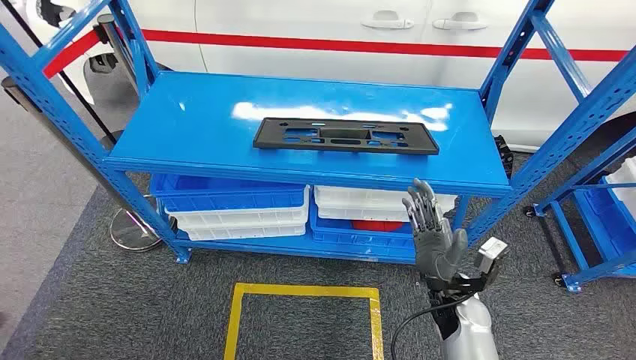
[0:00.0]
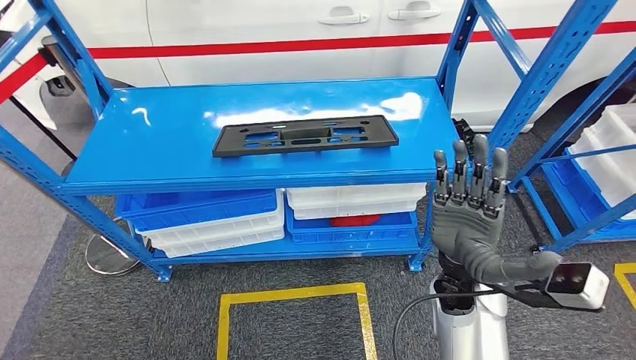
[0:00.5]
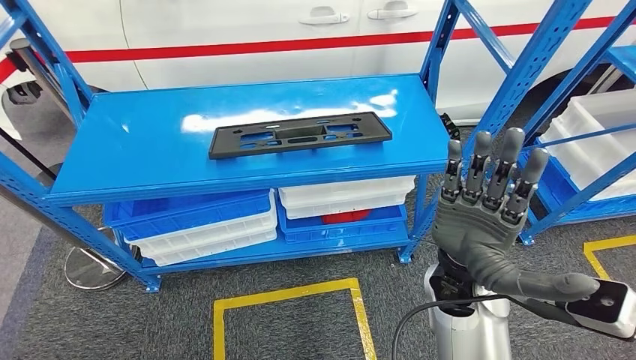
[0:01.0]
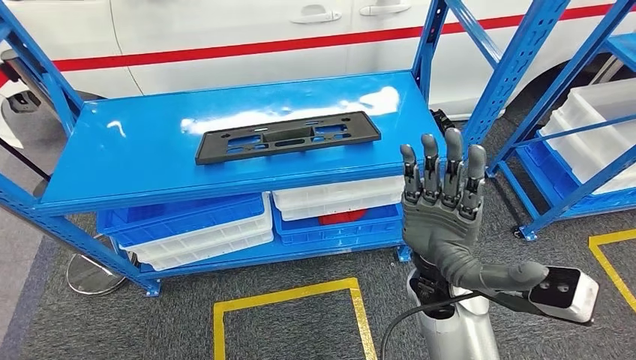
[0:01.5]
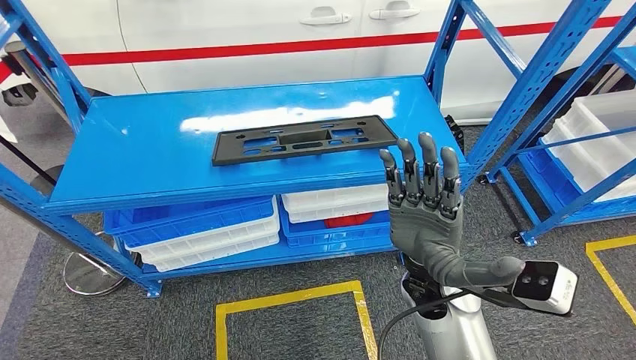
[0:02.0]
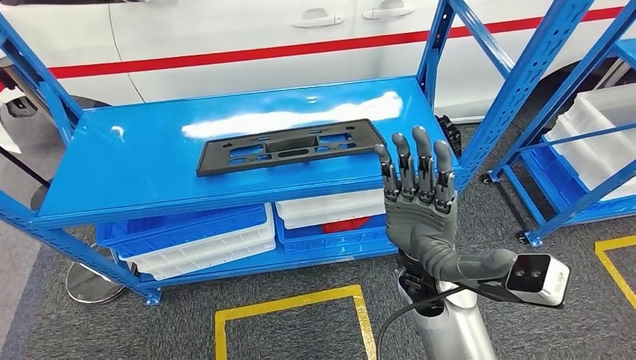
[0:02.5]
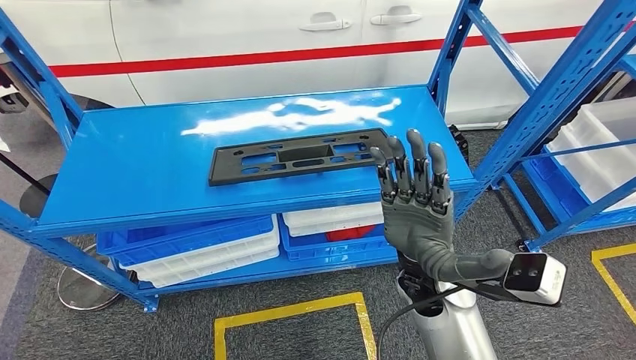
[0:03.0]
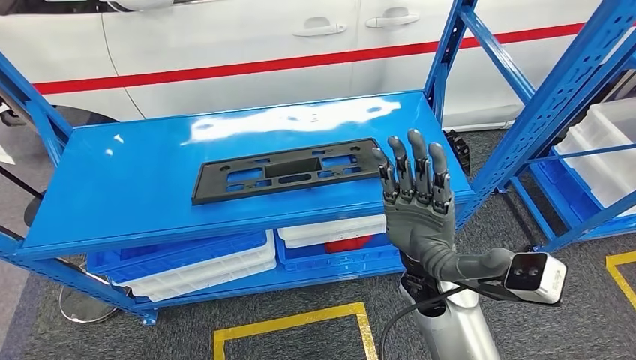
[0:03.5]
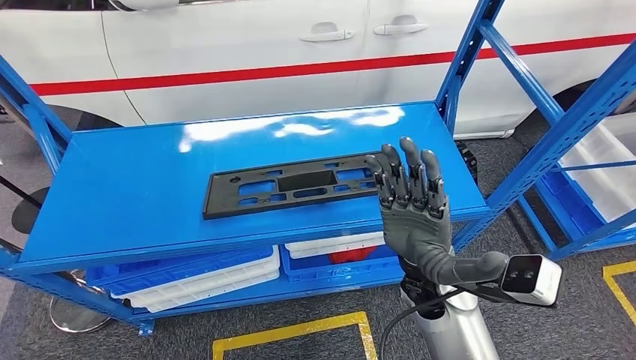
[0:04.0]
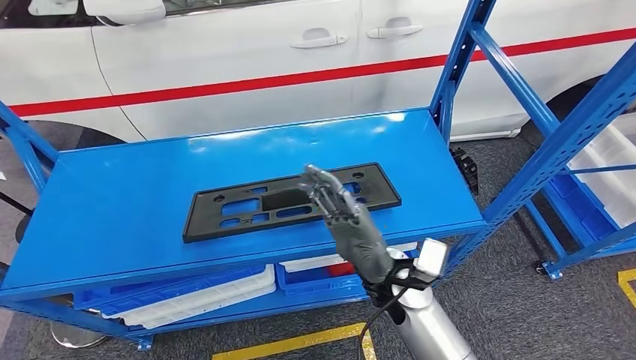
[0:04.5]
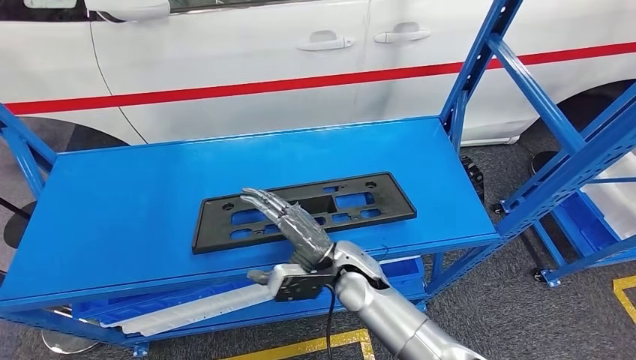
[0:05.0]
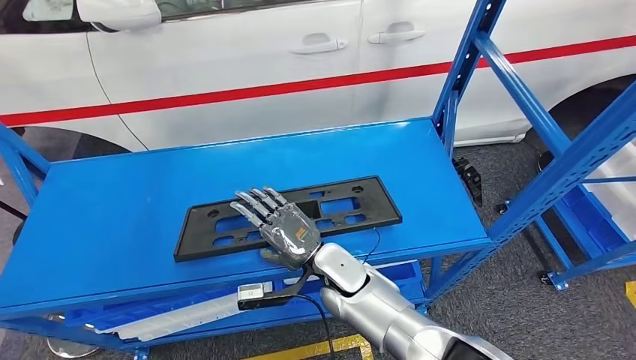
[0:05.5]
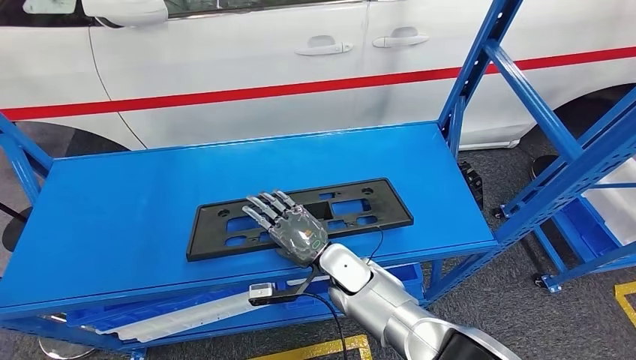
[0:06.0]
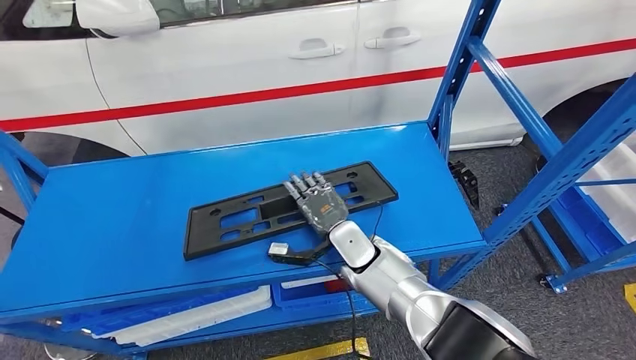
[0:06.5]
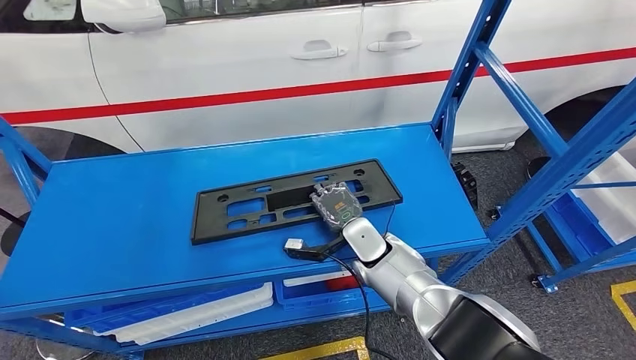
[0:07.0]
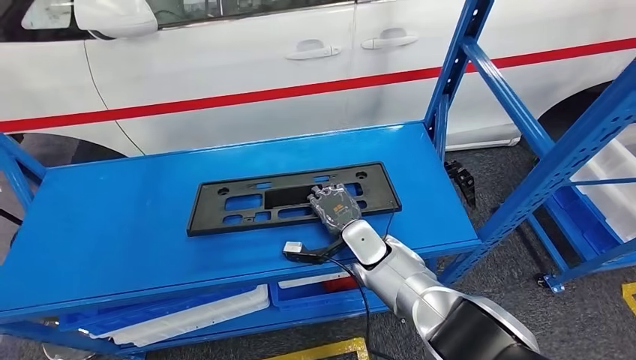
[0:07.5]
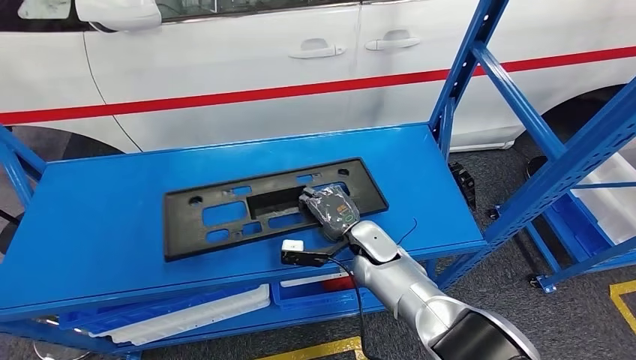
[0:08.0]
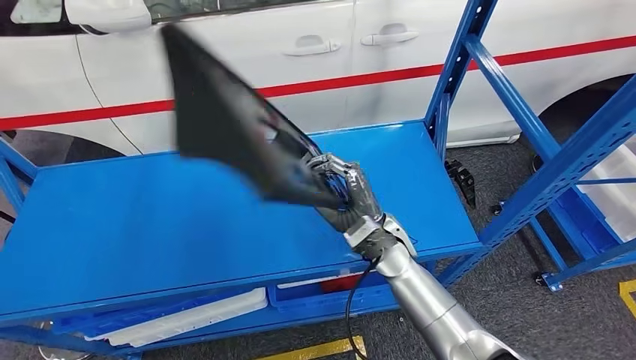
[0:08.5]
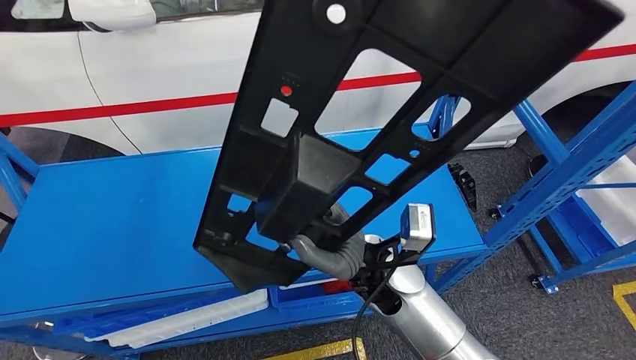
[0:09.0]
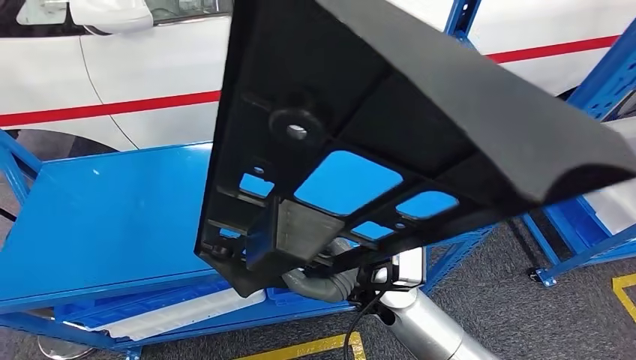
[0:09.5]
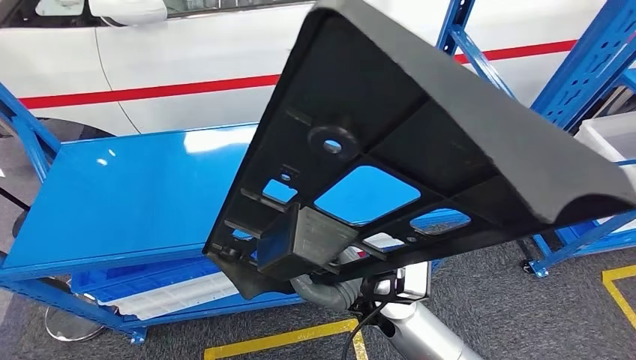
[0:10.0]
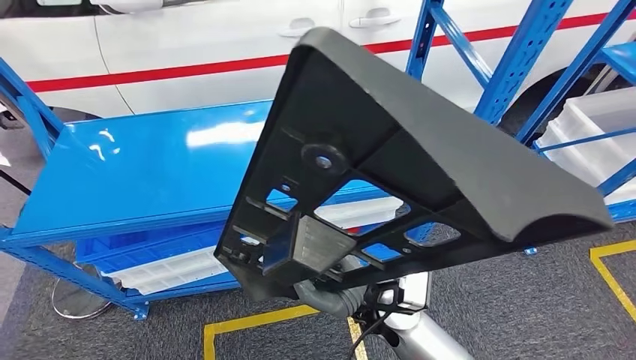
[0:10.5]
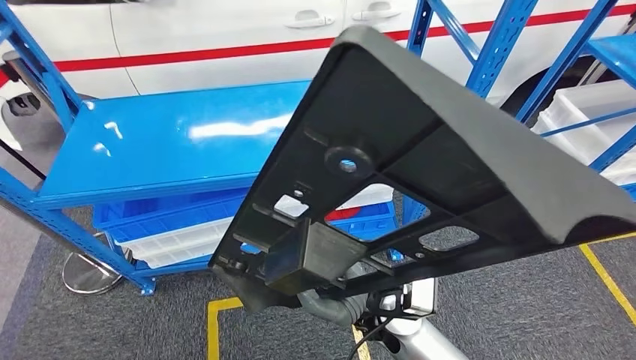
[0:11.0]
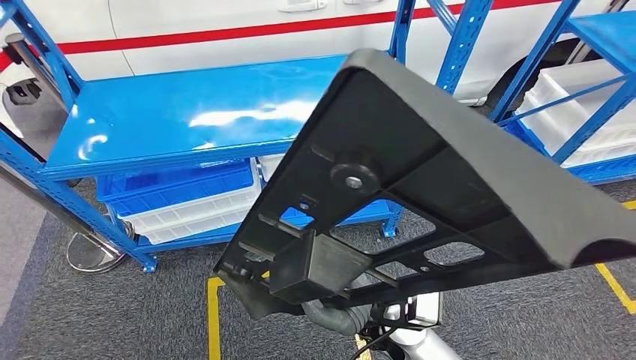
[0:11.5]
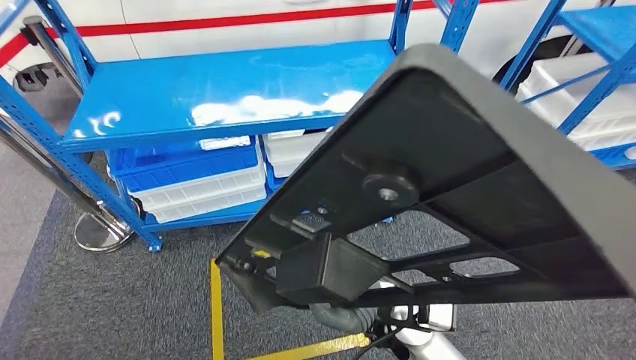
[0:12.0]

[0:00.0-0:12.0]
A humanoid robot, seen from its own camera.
Step, 0:00.0 to 0:08.0: Pick up the large material from the shelf.

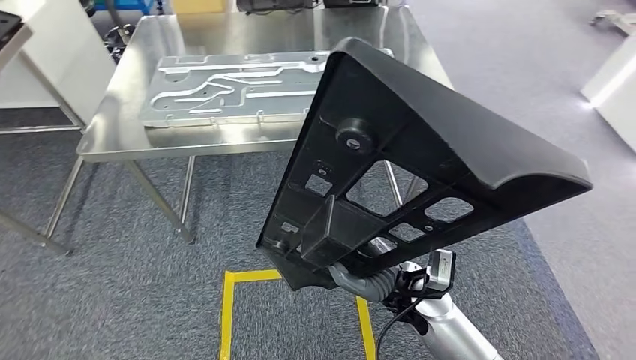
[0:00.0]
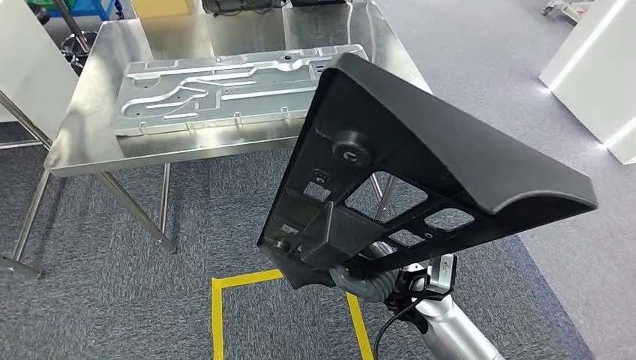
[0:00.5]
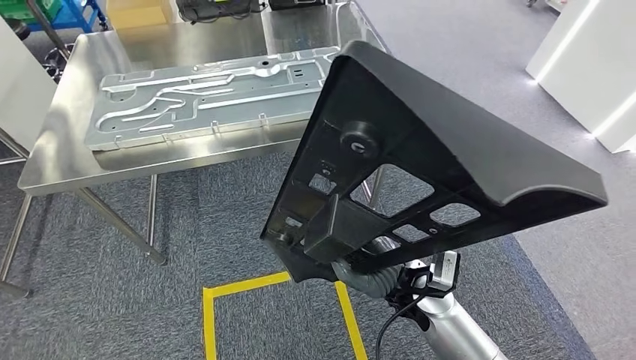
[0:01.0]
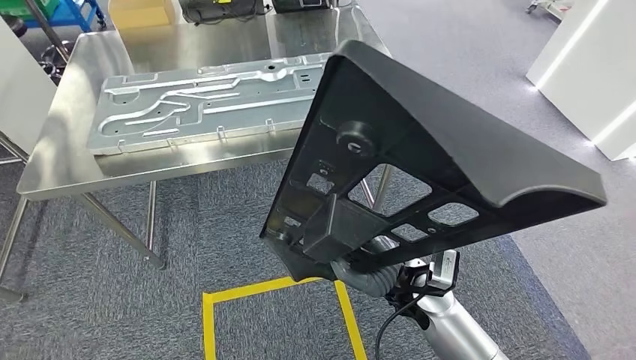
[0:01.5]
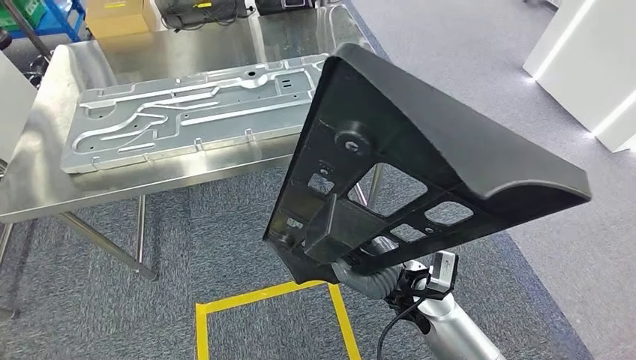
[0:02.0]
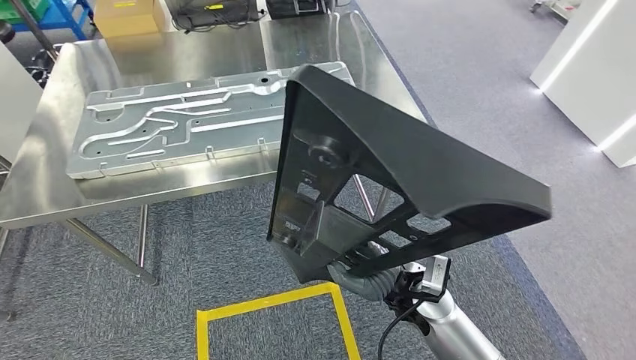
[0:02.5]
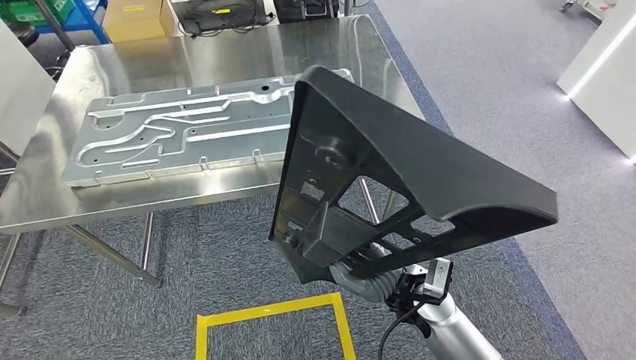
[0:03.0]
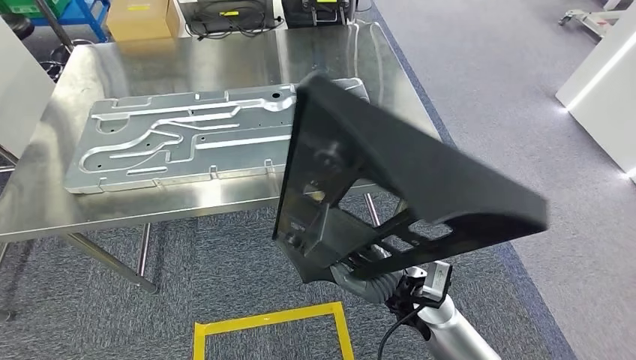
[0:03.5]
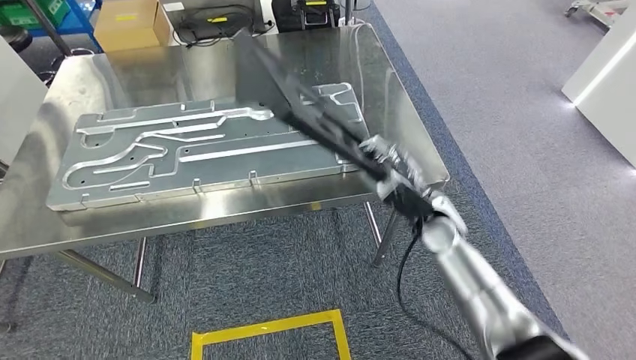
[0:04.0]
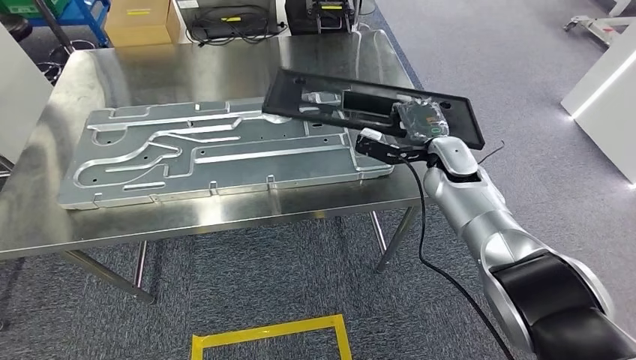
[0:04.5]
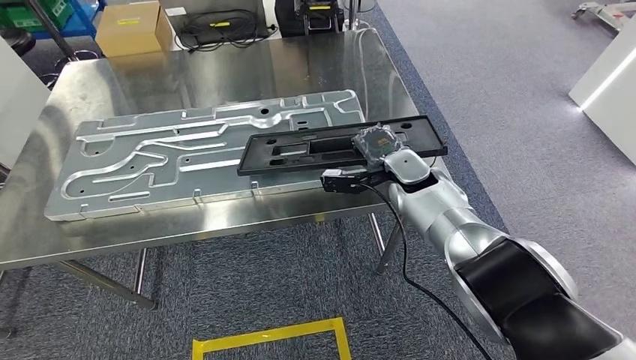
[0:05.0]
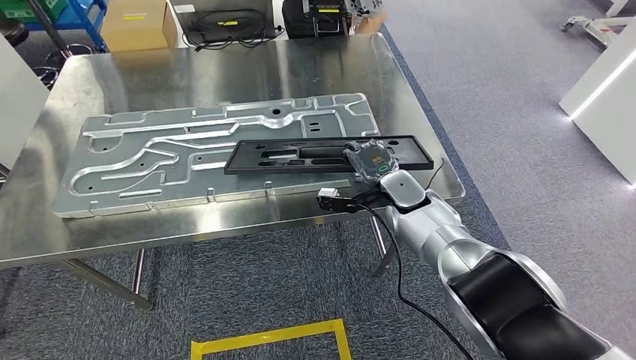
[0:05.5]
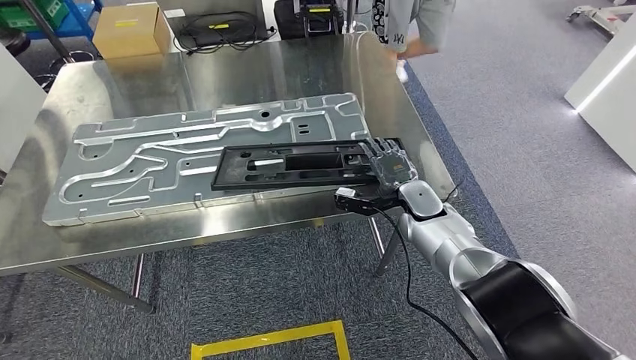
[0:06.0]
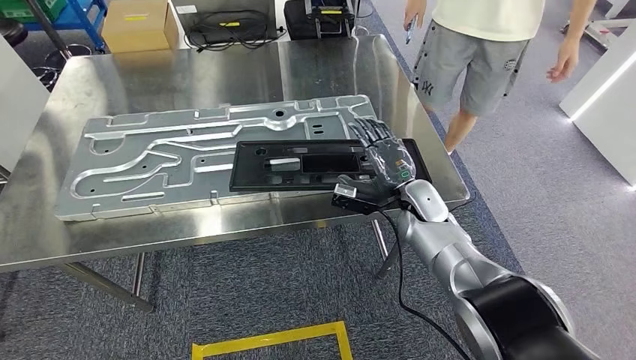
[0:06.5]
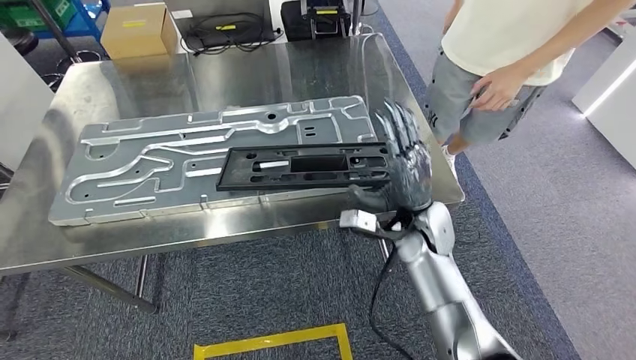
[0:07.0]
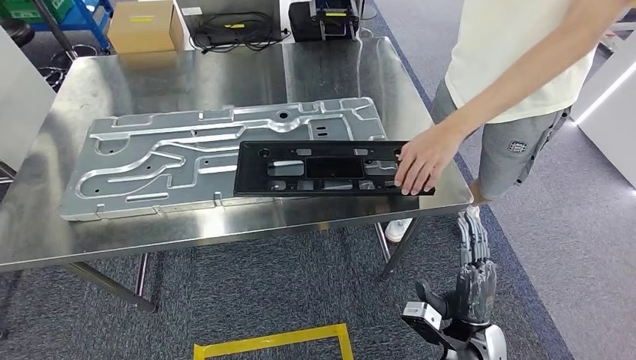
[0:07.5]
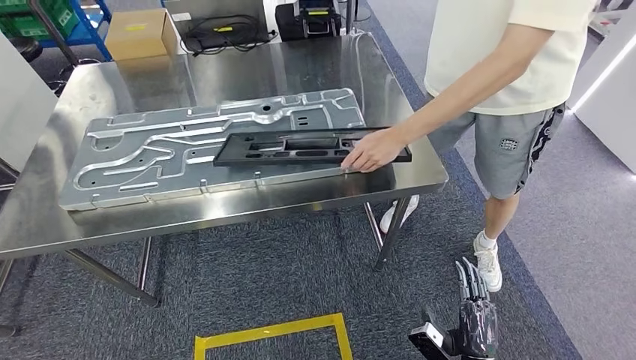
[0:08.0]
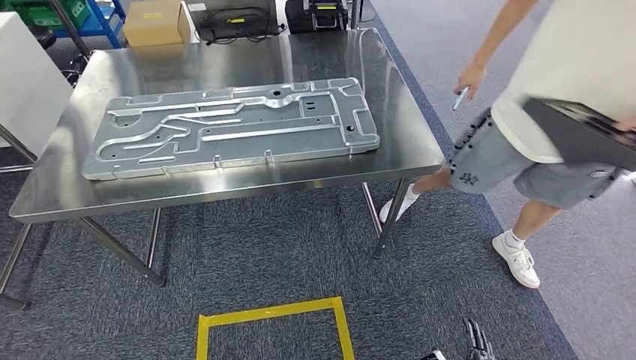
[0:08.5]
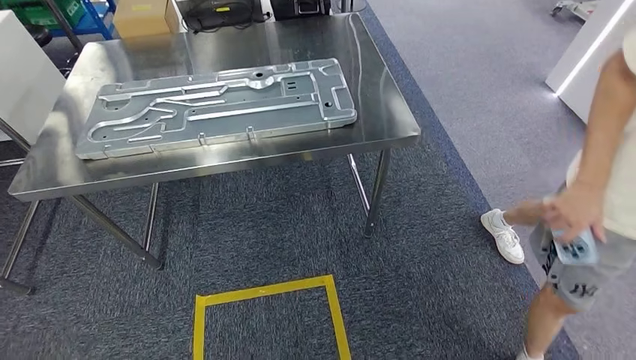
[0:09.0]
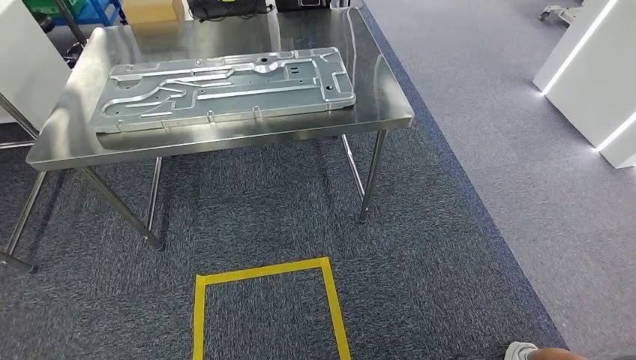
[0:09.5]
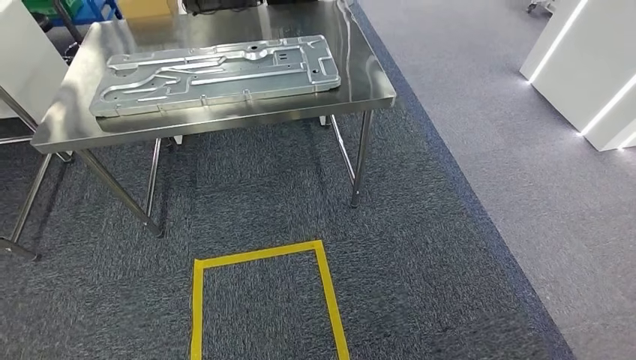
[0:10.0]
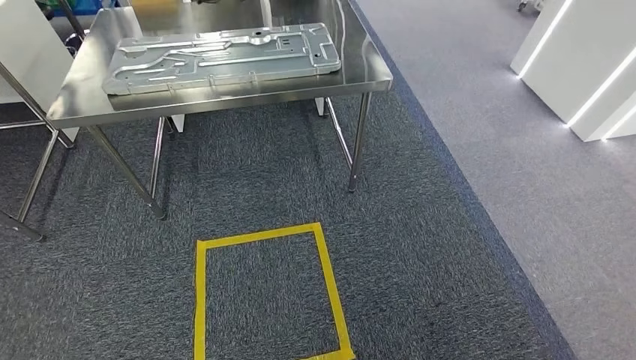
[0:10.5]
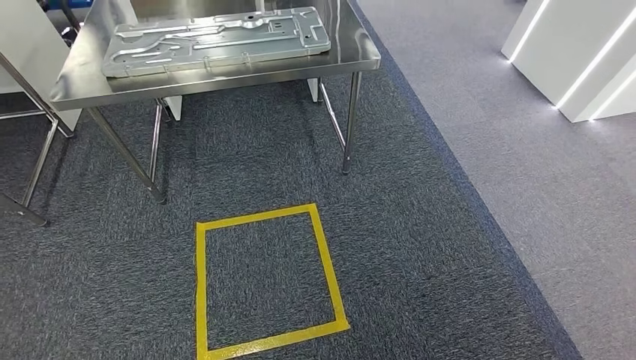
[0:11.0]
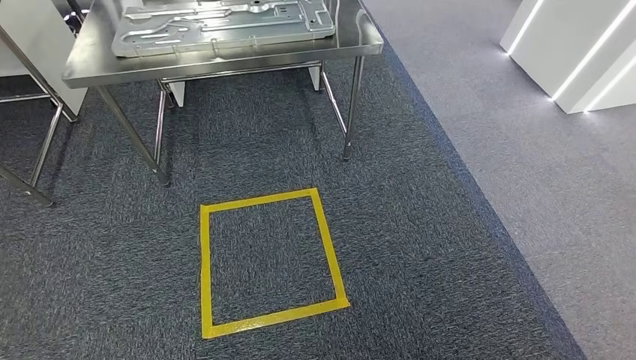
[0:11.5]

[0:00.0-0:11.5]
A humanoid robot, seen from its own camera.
Step, 0:00.0 to 0:02.0: Move the large material to the front of the workbench.
Step, 0:05.0 to 0:08.5: Insert the large material into the corresponding hole on the workbench.
